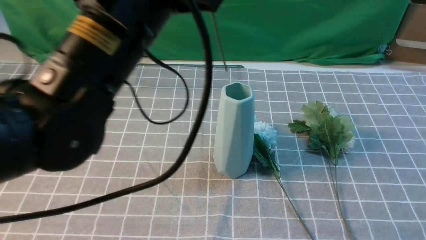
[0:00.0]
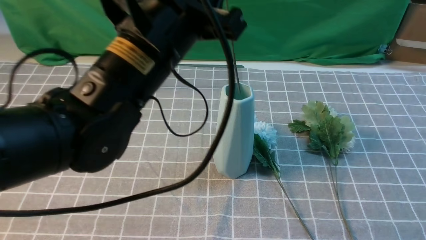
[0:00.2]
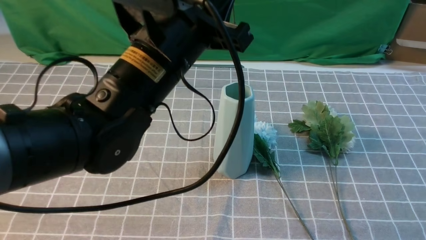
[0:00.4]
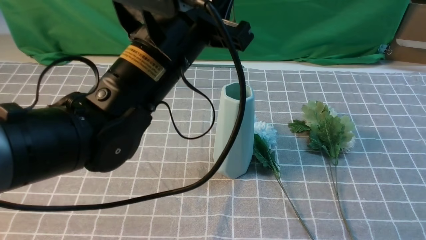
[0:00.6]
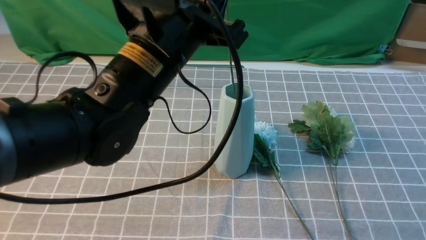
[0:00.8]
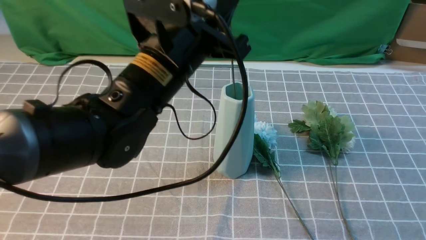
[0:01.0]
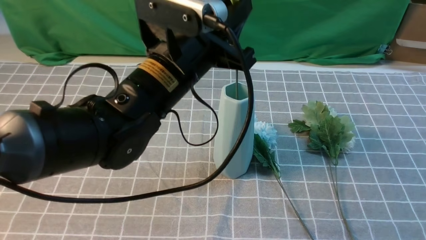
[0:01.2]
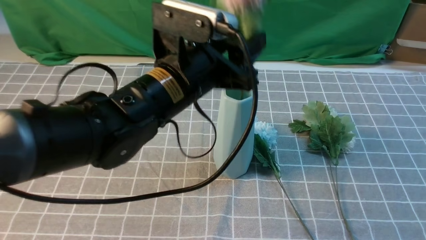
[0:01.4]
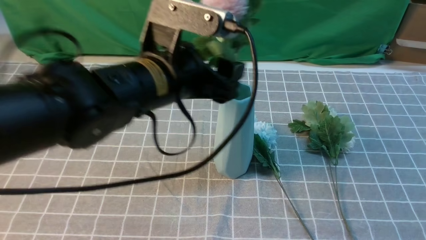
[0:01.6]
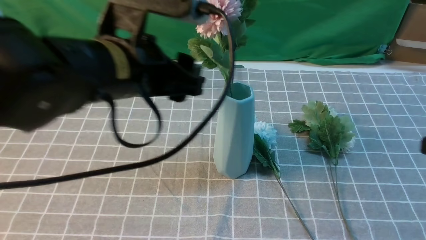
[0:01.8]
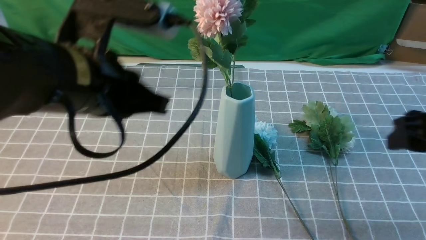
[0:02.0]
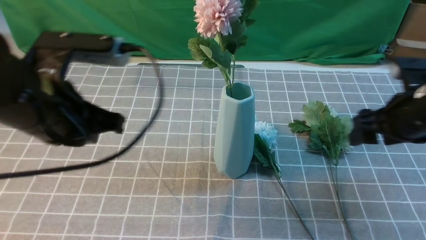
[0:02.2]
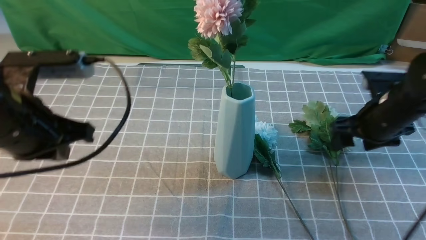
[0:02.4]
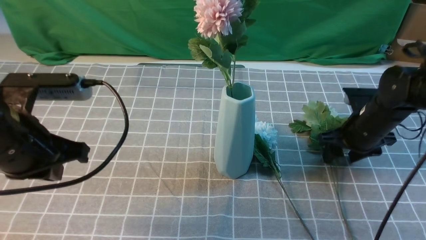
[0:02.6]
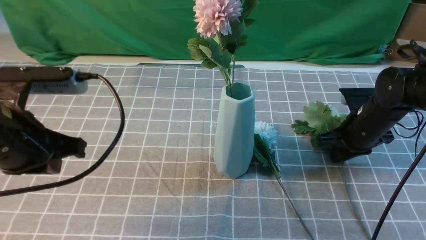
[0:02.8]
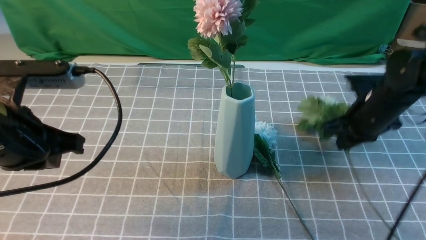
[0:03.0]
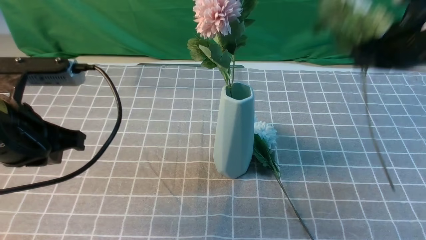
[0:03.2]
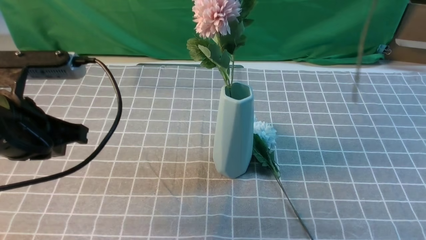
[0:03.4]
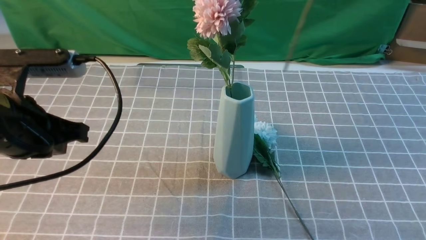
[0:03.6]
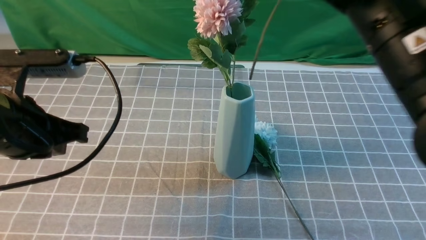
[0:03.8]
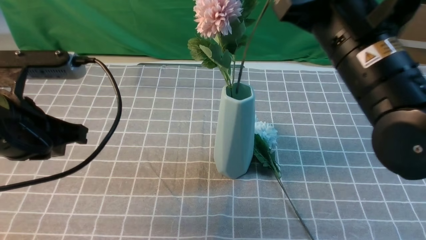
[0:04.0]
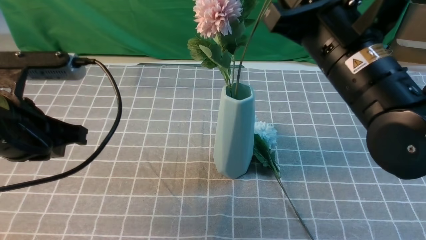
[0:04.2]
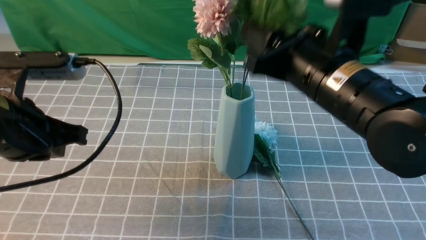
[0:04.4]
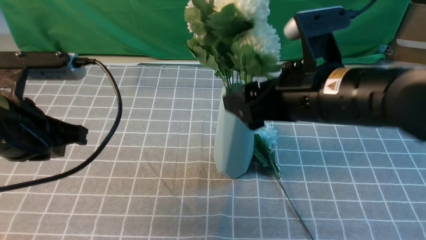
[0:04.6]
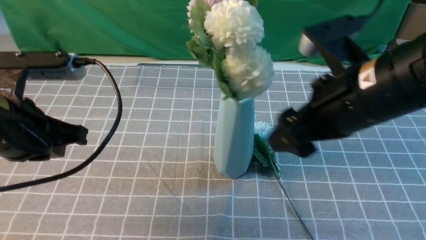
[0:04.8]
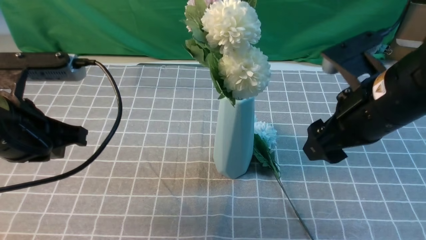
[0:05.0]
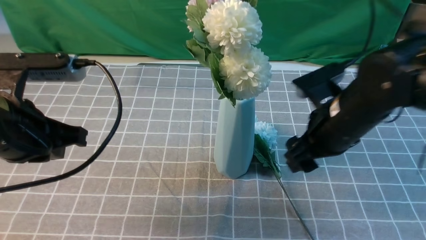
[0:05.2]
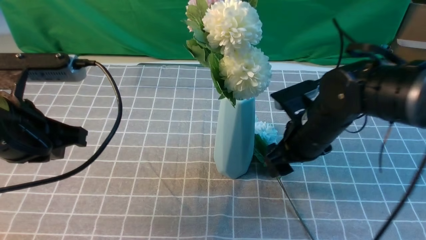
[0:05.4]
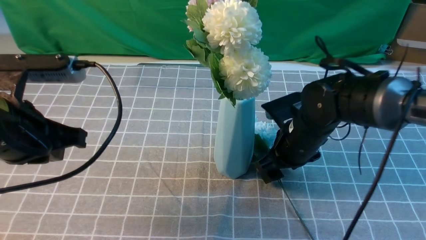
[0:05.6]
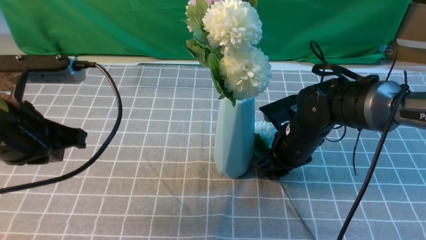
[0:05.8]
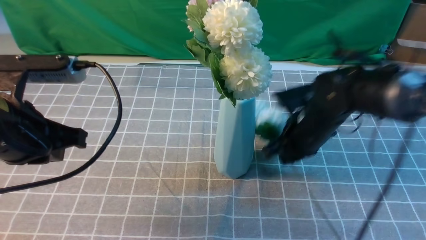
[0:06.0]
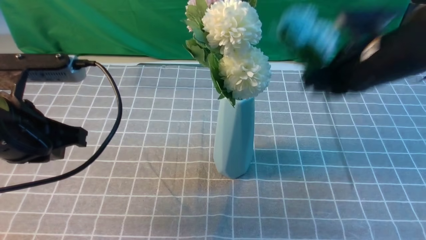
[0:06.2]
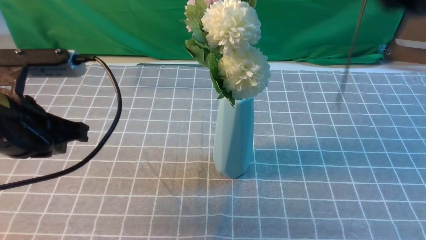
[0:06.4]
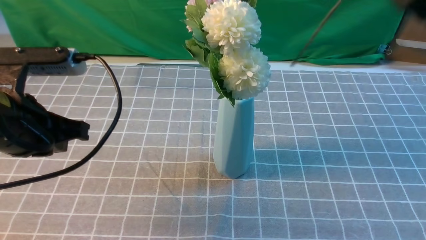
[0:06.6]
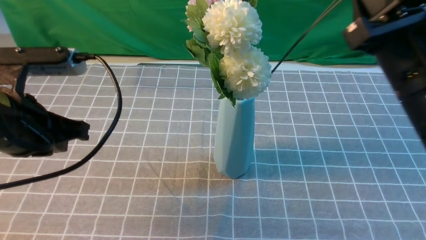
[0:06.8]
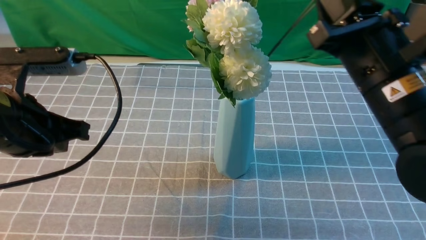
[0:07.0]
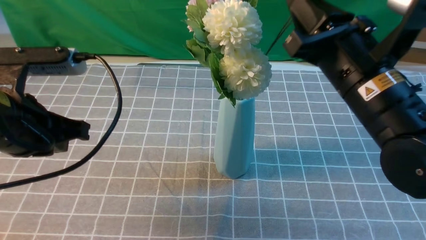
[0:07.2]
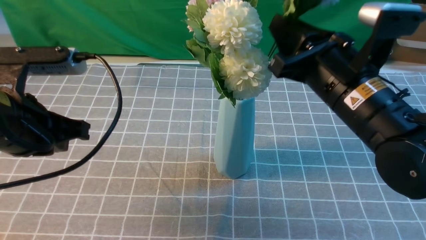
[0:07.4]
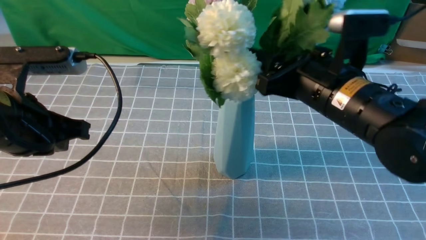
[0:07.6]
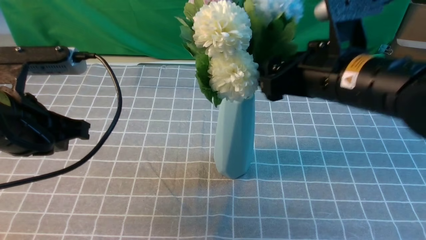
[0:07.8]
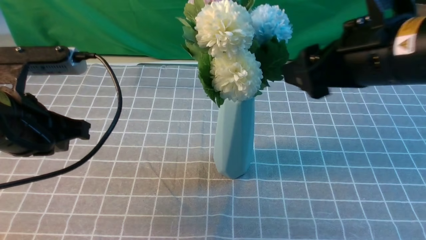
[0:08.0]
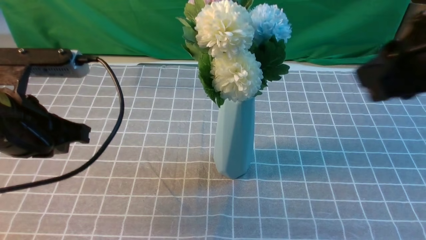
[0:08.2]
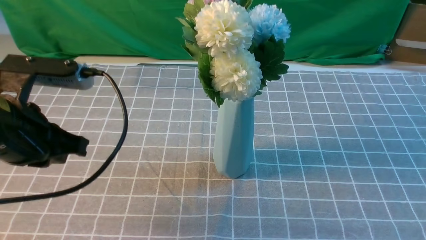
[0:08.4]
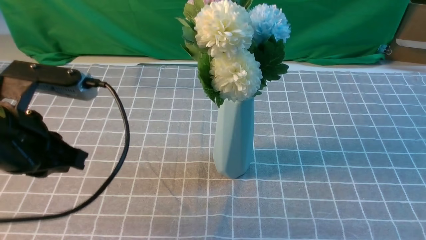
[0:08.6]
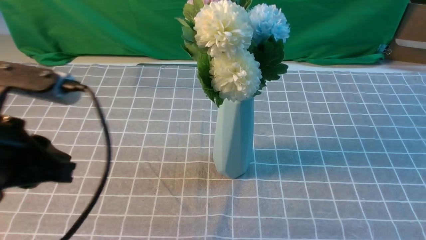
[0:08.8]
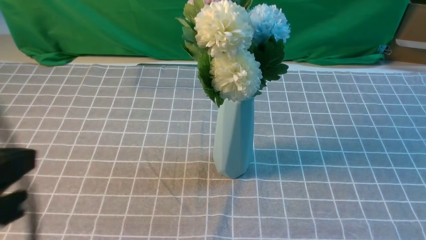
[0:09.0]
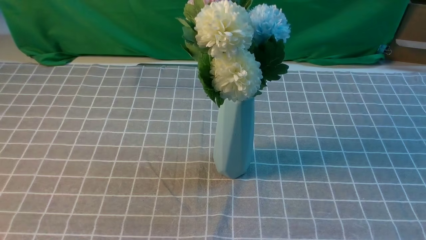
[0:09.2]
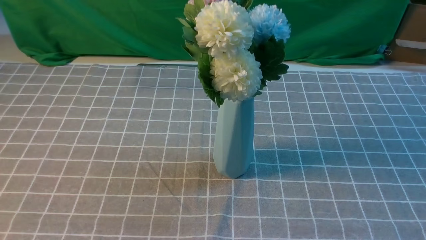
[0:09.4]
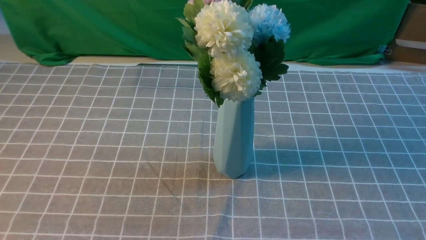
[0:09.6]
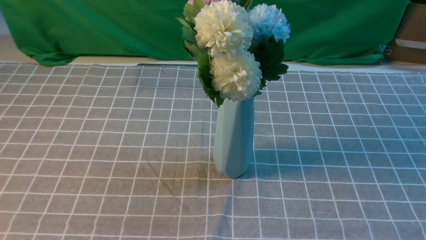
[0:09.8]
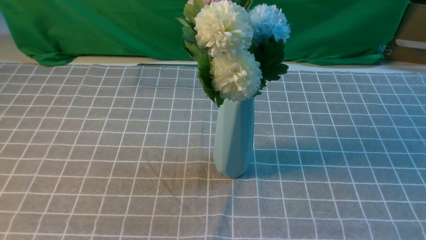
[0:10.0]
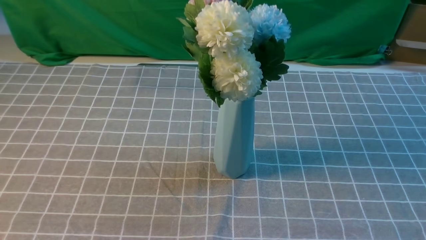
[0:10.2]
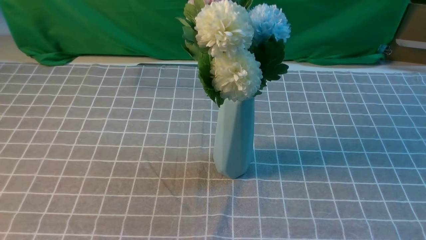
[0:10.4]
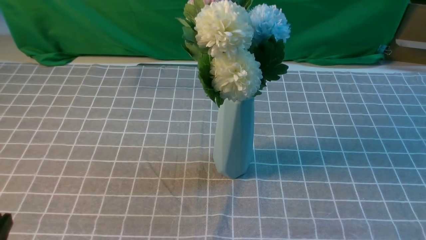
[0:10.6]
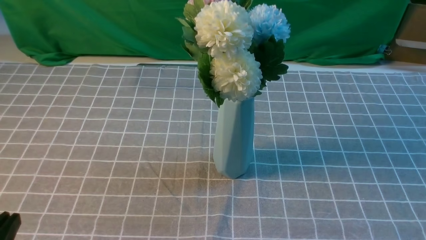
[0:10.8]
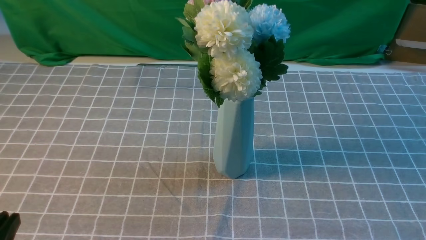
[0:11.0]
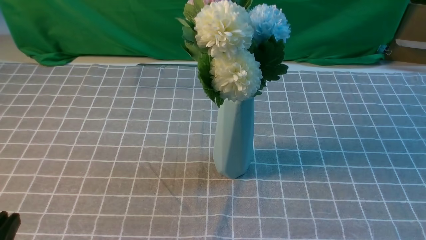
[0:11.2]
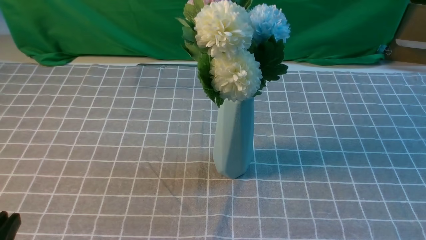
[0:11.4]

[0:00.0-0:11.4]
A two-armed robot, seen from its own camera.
Task of the whole recording: insert the flowers into the vase on the table with the grey tablecloth.
Step, 0:00.0 to 0:02.0: use the left arm to insert the flowers into the vase.
Step, 0:02.2 to 0:02.8: use the right arm to grab a bunch of fresh flowers.
Step, 0:03.0 to 0:04.6: use the right arm to insert the flowers into the vase.
Step, 0:04.8 to 0:05.8: use the right arm to grab a bunch of fresh flowers.
Step, 0:06.0 to 0:08.0: use the right arm to insert the flowers into the vase.
0:00.0 to 0:01.4: The left gripper travels downward by about 5 cm, and opens up.
0:01.4 to 0:02.8: The right gripper travels forward and downward by roughly 30 cm, and opens and closes again; the left gripper goes some 20 cm to the left and backward, and closes its fingers.
0:02.8 to 0:04.2: The right gripper moves upward, to the left and backward, about 25 cm.
0:04.2 to 0:05.6: The right gripper shifts roughly 20 cm downward and forward, and opens its fingers.
0:05.6 to 0:07.2: The right gripper goes approximately 15 cm upward and backward, and closes up.
0:07.2 to 0:08.6: The right gripper heads backward, to the right and upward, covering approximately 25 cm, and opens and closes again.
0:08.6 to 0:10.0: The right gripper moves downward and backward, approximately 10 cm. The left gripper moves backward, some 20 cm.

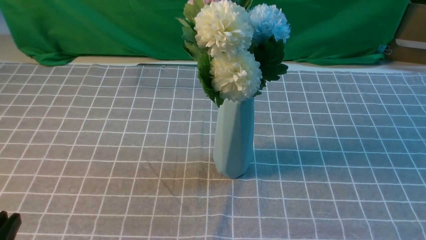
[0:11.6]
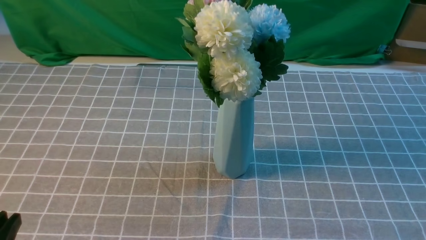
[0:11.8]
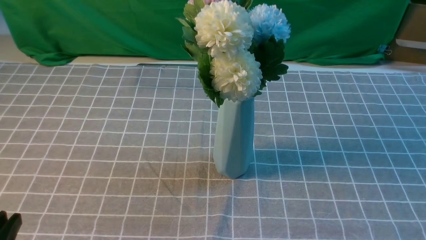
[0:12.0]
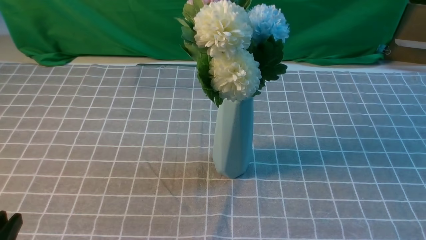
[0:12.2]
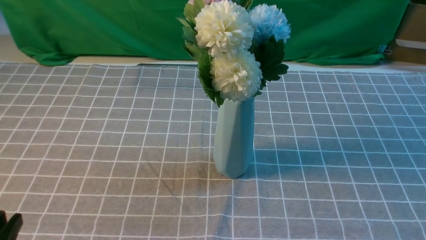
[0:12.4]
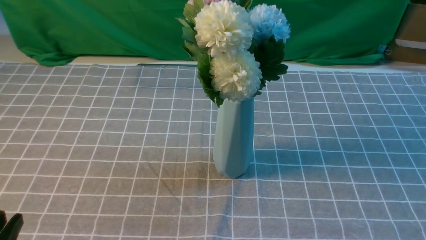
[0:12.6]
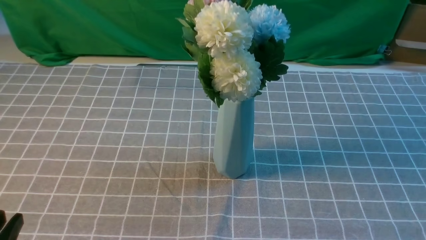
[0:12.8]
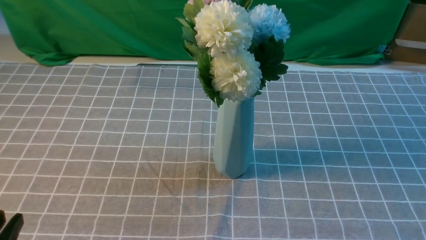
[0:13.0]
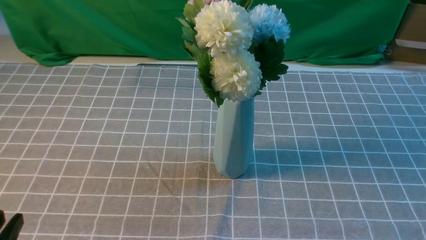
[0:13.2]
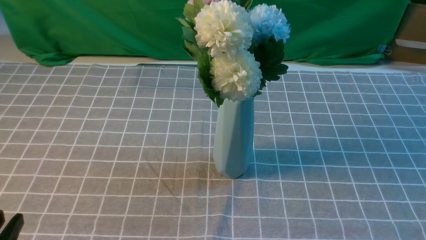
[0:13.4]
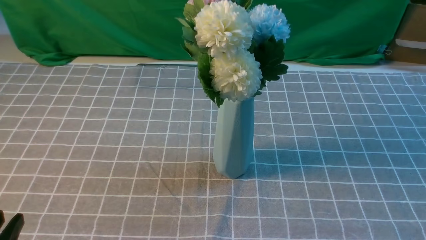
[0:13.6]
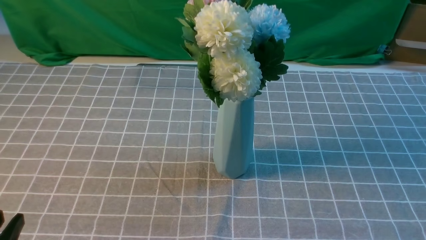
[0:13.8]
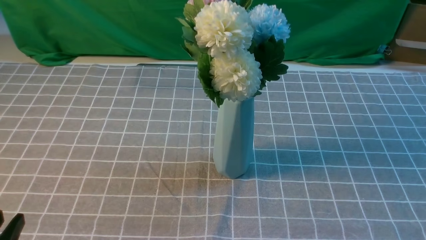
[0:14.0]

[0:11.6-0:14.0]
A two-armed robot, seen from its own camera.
Task of the whole recording: insert the flowers into the vase on the table with the grey tablecloth.
0:12.8 to 0:14.0: Both grippers stay about where they are.

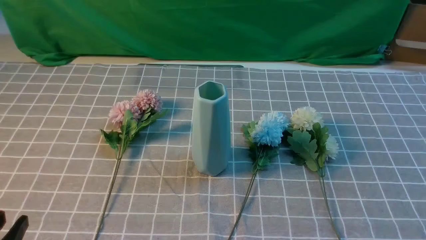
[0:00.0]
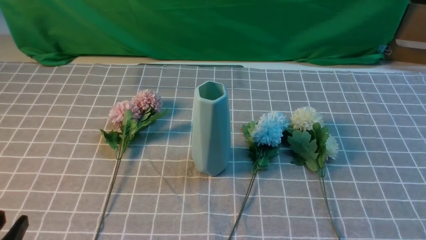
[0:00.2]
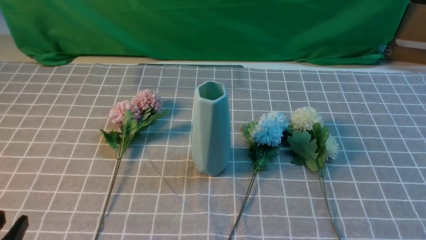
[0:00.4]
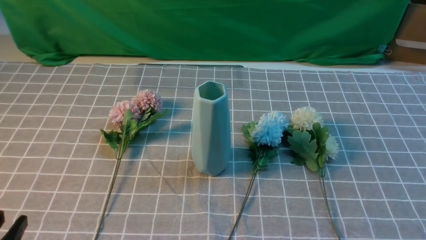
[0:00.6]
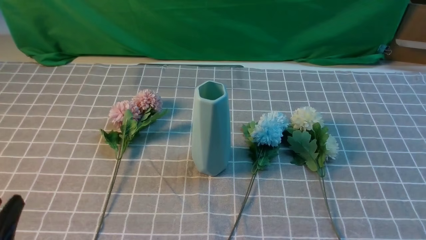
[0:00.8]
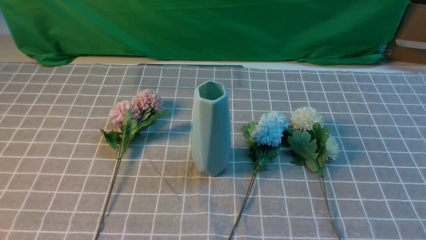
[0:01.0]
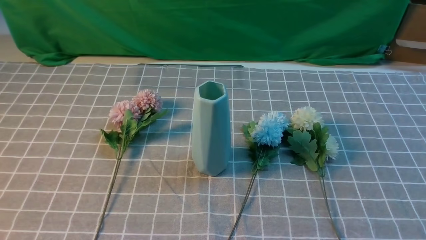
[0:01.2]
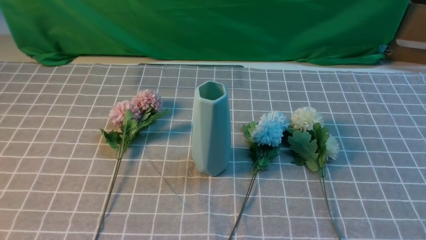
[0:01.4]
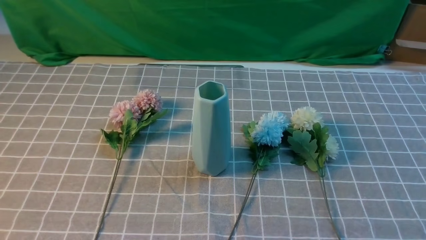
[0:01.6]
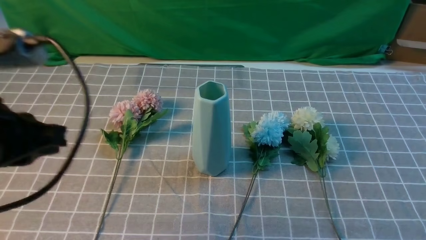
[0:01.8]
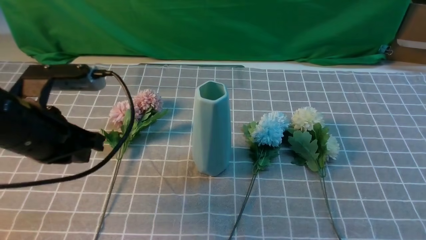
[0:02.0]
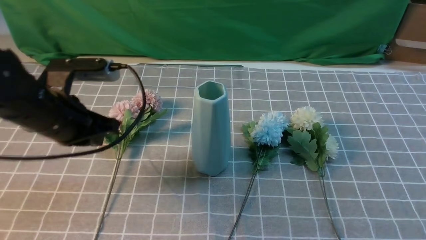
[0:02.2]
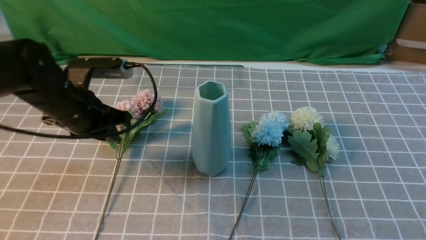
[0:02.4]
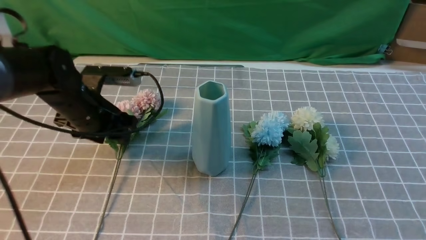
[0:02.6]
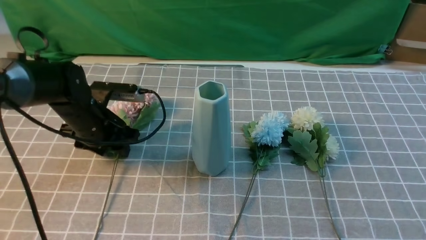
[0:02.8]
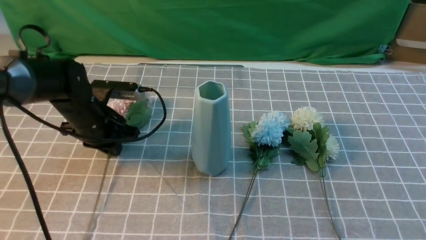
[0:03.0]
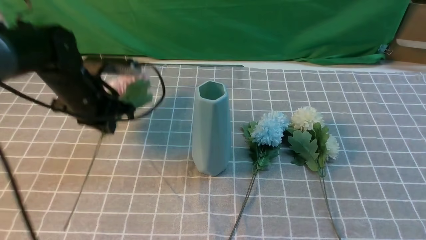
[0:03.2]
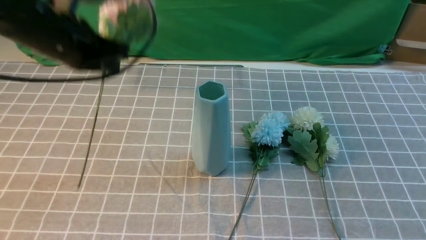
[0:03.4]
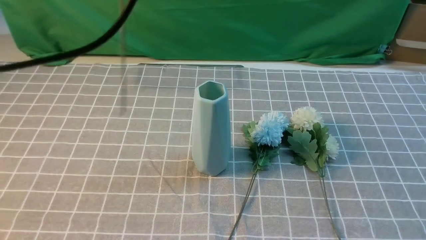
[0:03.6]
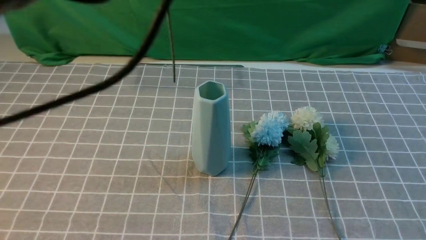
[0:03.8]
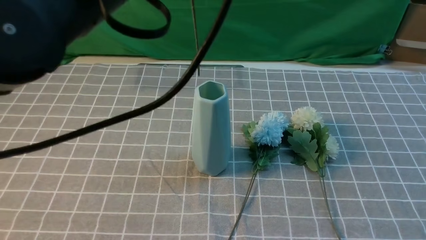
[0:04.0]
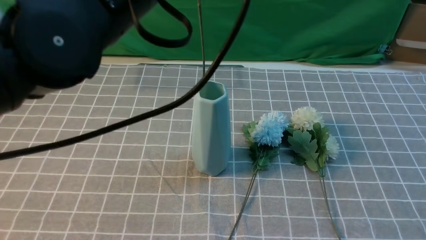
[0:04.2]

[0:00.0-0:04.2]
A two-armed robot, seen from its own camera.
Task of the whole recording: insert the flowers into the vase on the table with the grey tablecloth.
Step, 0:00.0 to 0:03.0: use the left arm to grab a bunch of fresh flowers.
0:01.4 to 0:02.8: The left gripper moves forward and downward, about 35 cm, and opens, while the right gripper moves upward and forward, about 15 cm.
0:02.8 to 0:04.2: The left gripper is displaced upward, to the right and backward by some 30 cm, and closes.
